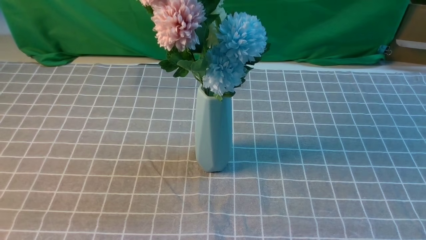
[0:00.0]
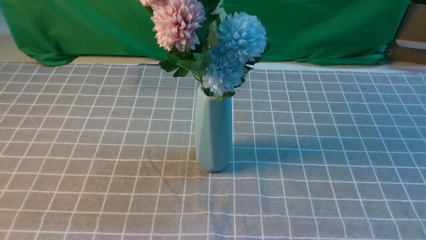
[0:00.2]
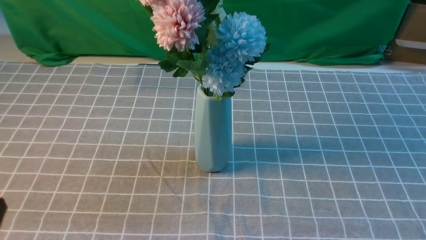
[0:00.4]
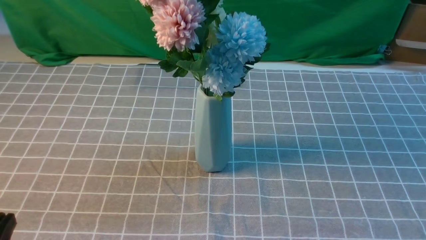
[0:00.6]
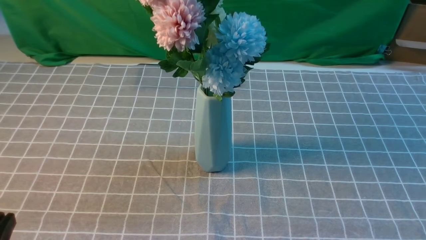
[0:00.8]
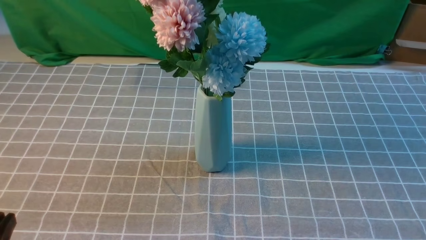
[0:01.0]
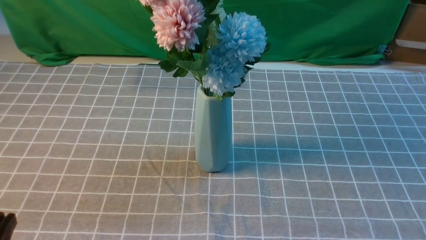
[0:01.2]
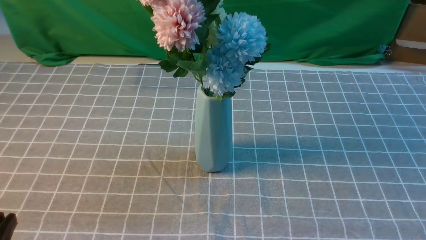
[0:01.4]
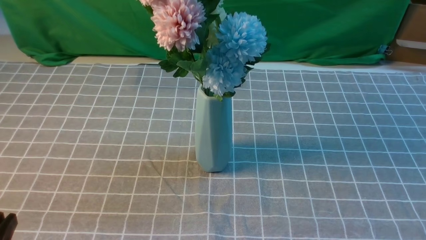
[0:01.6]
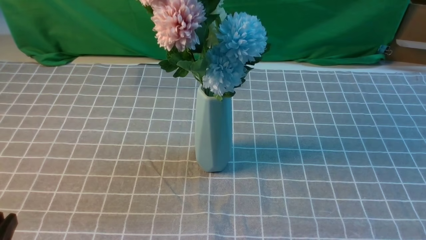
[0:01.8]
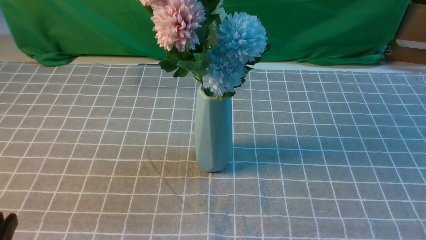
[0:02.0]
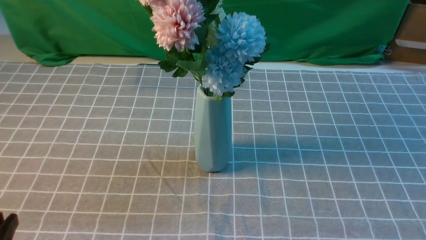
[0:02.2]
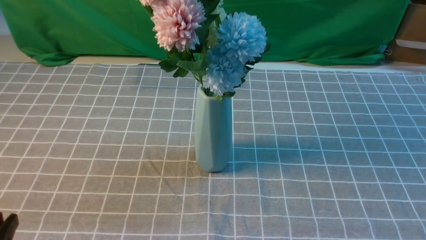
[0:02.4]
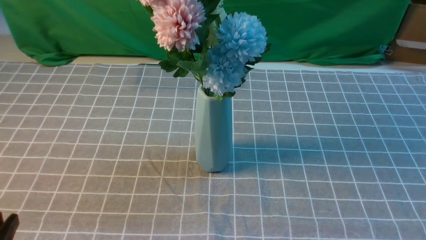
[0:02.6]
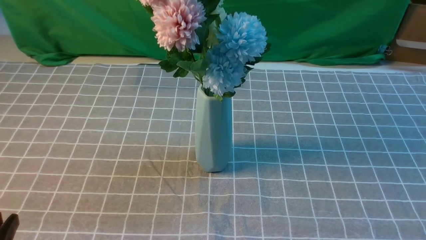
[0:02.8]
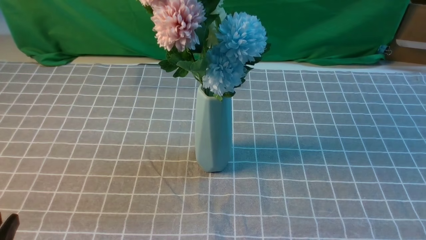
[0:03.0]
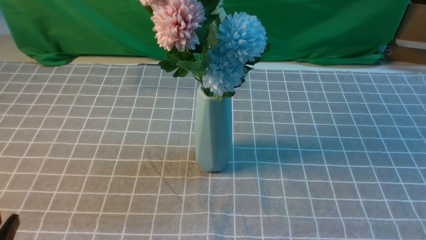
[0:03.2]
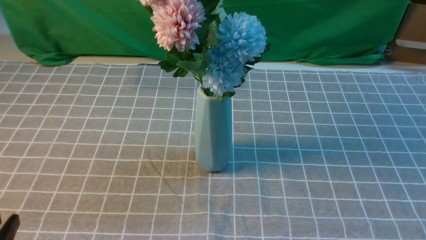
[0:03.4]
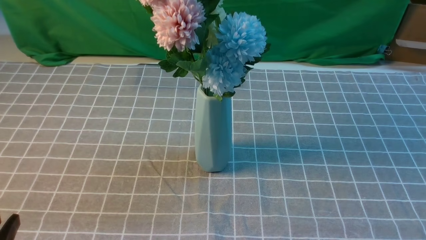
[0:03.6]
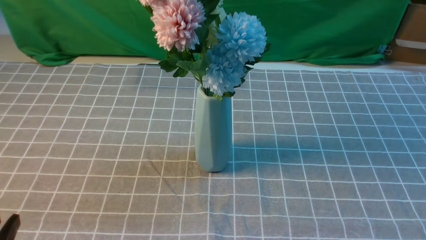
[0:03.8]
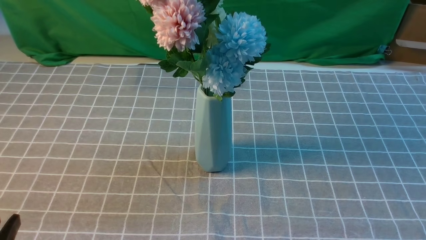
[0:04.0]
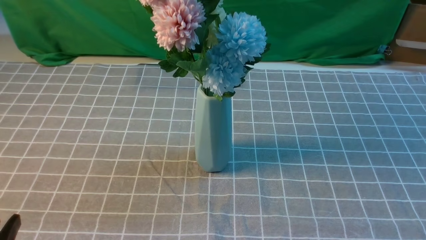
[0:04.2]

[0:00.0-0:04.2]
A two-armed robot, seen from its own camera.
Task of the whole recording: insert the flowers into the vase on the table with the grey tablecloth.
0:02.8 to 0:04.2: The two grippers keep their place.

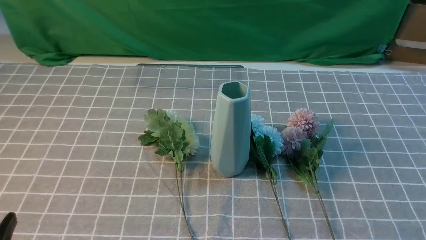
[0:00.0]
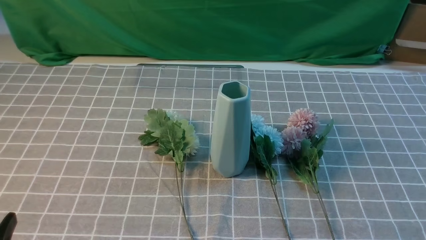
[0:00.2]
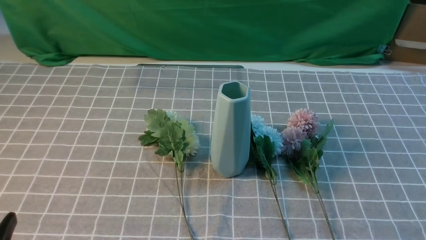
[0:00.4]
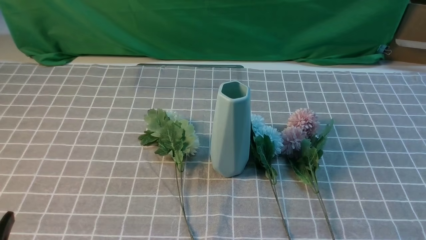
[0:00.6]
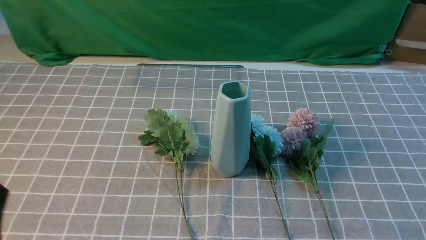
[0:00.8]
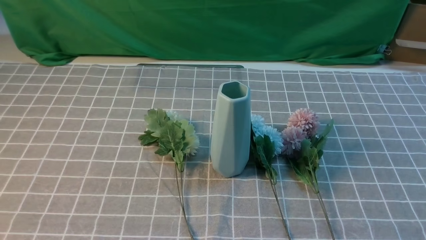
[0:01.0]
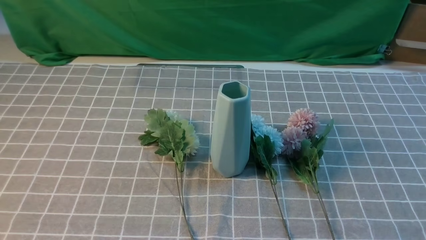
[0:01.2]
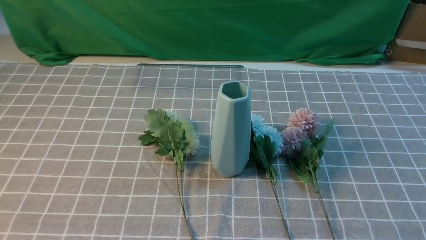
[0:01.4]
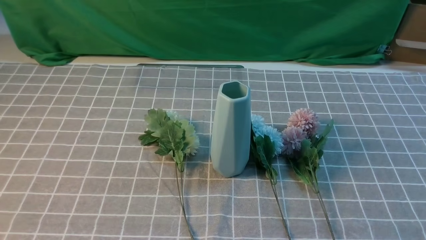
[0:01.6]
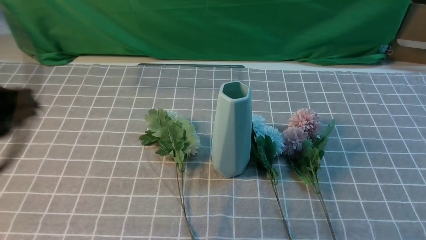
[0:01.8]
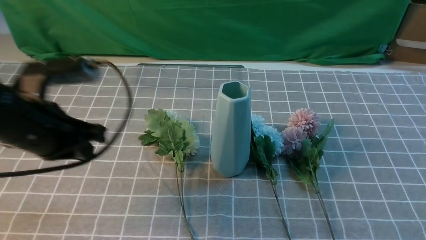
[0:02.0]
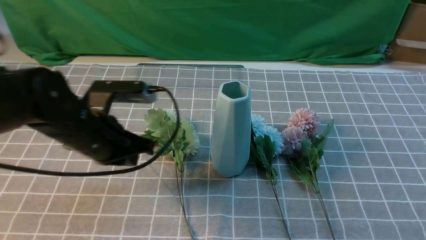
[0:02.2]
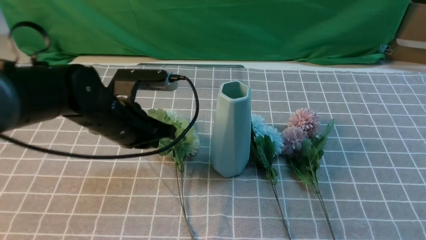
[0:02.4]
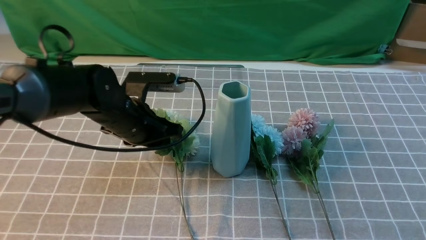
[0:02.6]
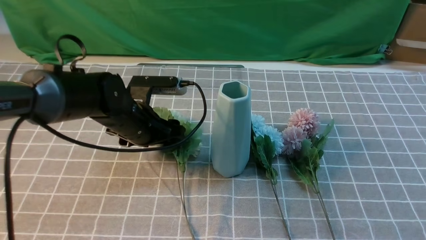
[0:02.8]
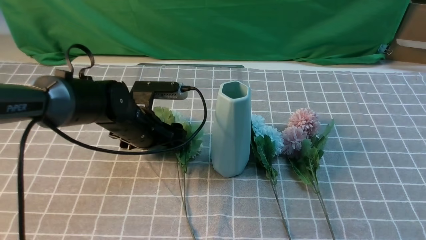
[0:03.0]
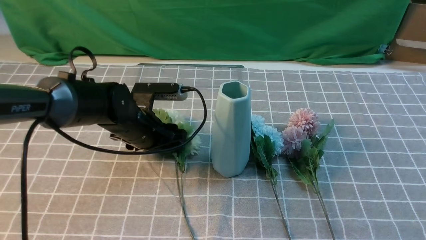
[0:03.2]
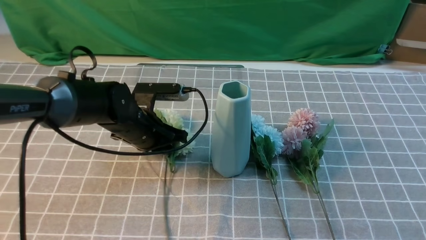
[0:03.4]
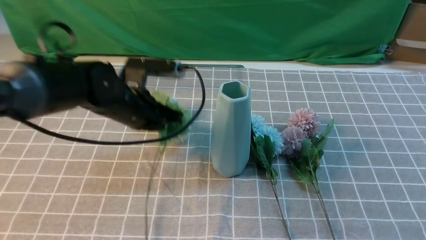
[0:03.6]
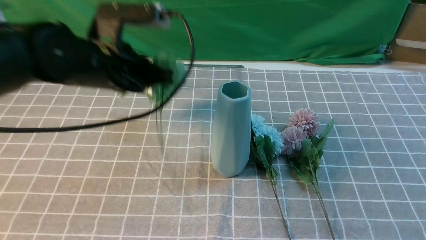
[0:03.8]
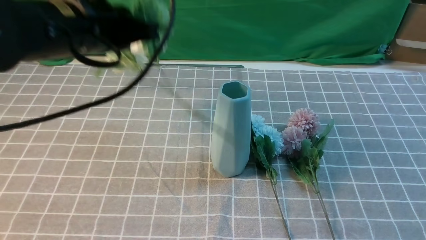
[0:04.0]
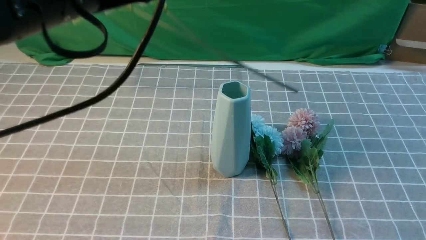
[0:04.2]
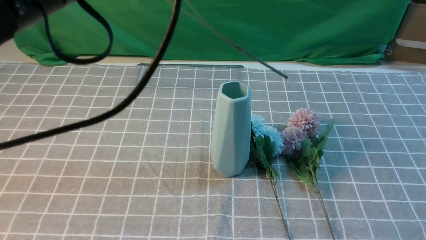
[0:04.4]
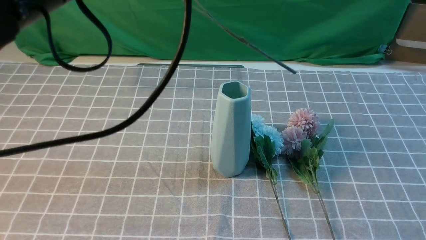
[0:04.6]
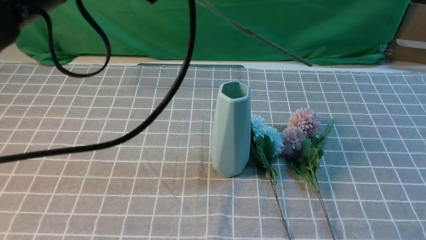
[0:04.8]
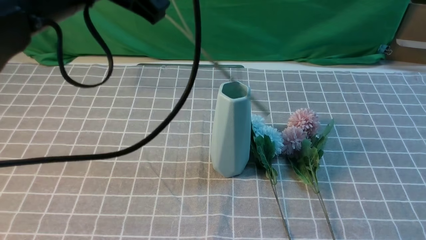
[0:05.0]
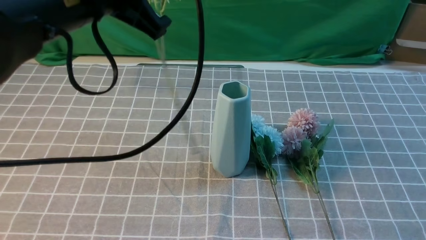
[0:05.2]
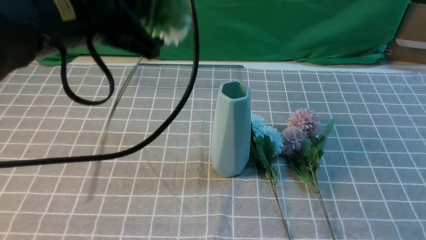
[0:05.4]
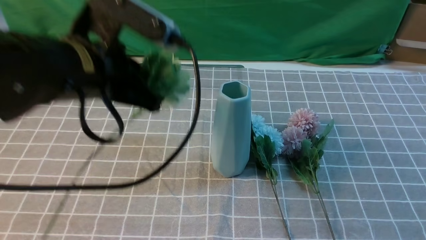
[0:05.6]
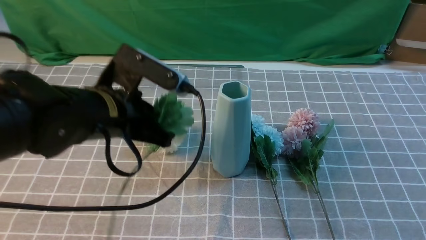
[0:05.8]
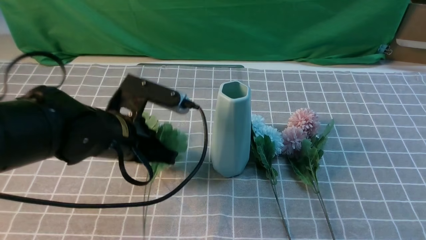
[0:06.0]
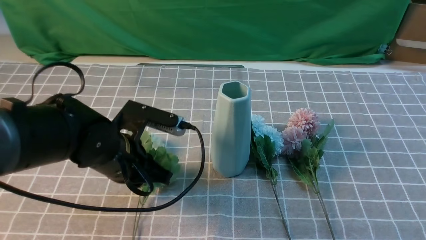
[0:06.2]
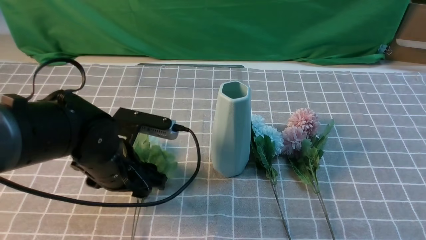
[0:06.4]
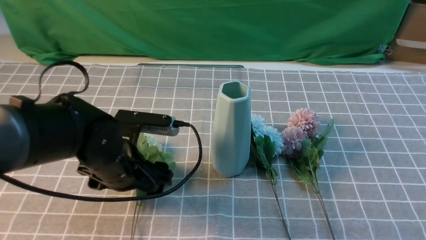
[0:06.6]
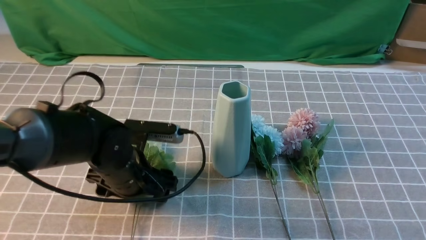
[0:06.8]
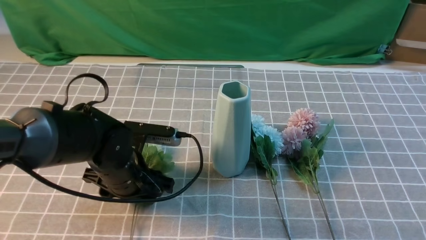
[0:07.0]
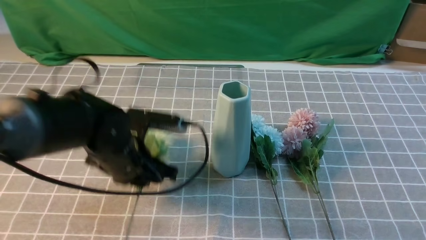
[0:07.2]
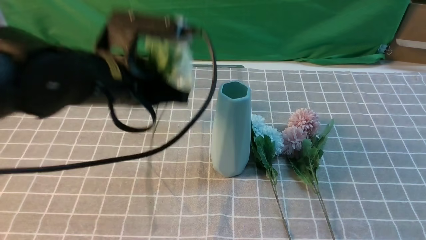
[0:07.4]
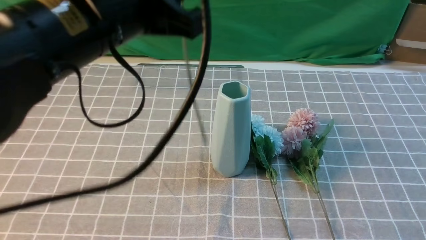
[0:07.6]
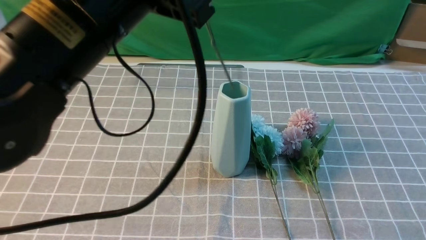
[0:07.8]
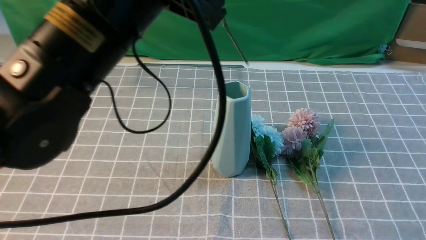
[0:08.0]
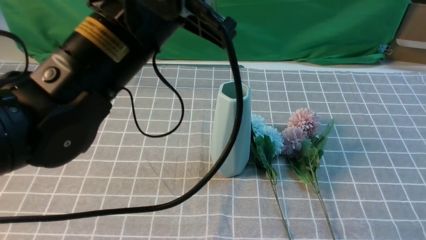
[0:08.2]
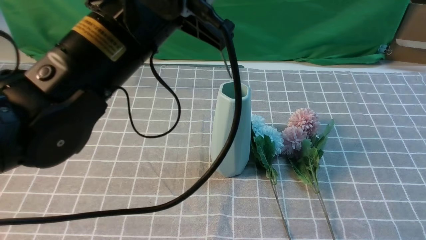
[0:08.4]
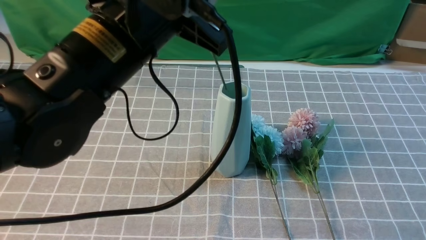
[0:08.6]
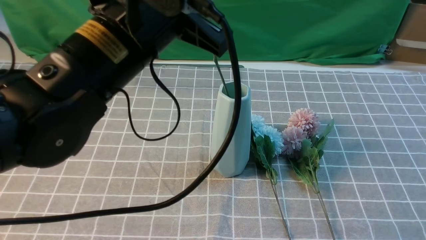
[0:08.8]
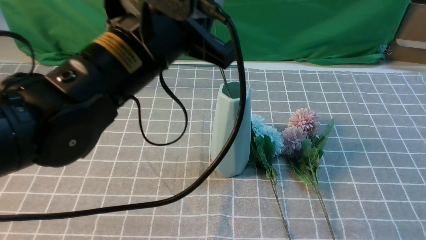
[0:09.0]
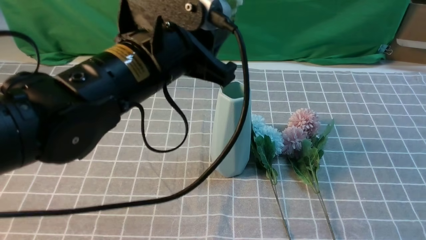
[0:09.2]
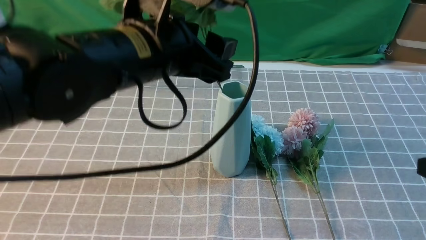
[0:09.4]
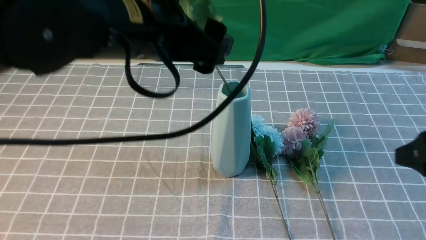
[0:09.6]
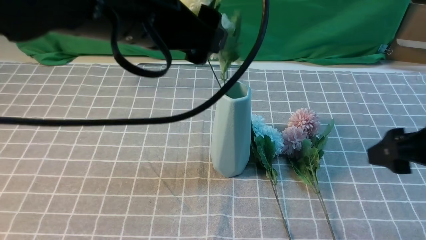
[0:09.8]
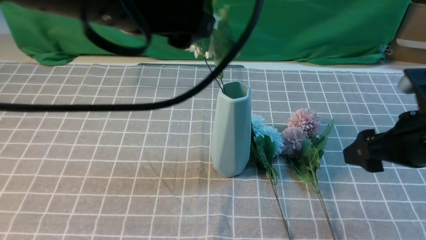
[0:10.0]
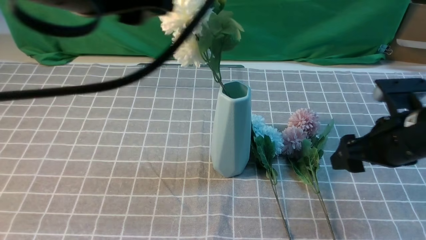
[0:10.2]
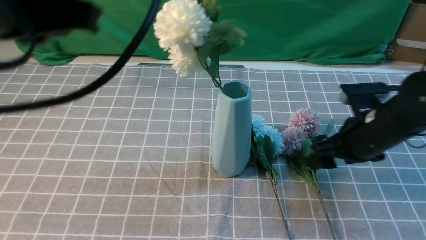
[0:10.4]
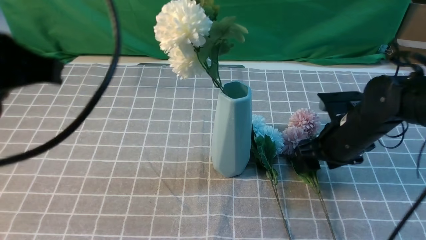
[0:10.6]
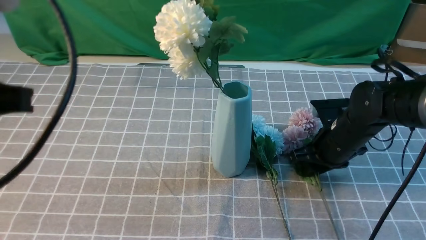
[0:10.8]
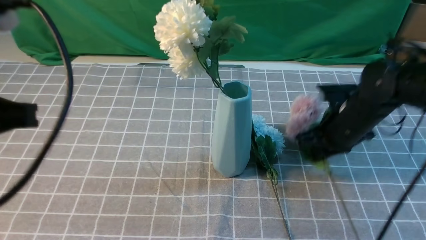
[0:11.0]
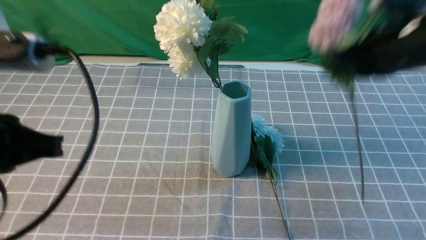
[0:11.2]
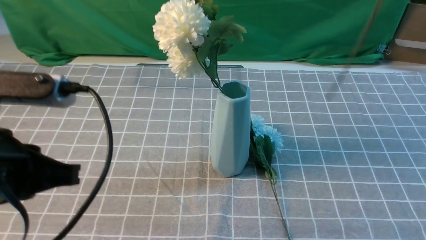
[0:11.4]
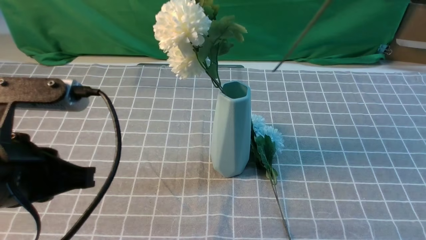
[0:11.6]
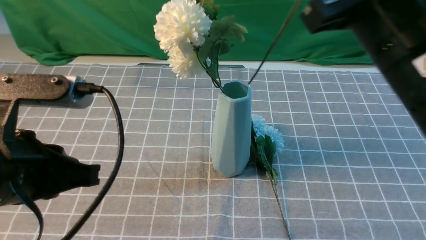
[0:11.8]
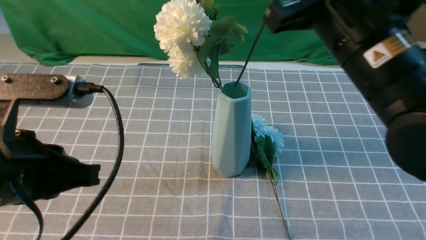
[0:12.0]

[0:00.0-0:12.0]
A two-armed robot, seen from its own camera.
Task of the whole recording: insert the flowers into the vase on the table with the grey tablecloth.
Step, 0:00.0 to 0:07.0: use the left arm to grab a bunch of fresh flowers.
Step, 0:07.2 to 0:09.8: use the left arm to insert the flowers into the vase.
Step, 0:10.0 to 0:10.8: use the right arm to grab a bunch of fresh flowers.
0:01.6 to 0:03.0: The left gripper travels forward, downward and to the right by roughly 35 cm, and opens its fingers, while the right gripper is displaced forward and upward by some 10 cm.
0:03.0 to 0:04.4: The left gripper travels upward by approximately 25 cm, and closes up.
0:04.4 to 0:06.0: The left gripper travels downward by approximately 20 cm.
0:06.0 to 0:07.6: The left gripper shifts about 10 cm upward, and opens and closes again.
0:09.0 to 0:10.4: The left gripper is displaced upward, to the left and backward by roughly 10 cm, and opens, then closes again; the right gripper goes some 20 cm forward, to the left and downward, and opens up.
0:10.4 to 0:12.0: The left gripper travels downward and backward by some 15 cm, while the right gripper moves up and down over roughly 25 cm, changing direction 2 times, and closes up.
